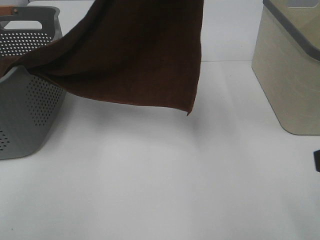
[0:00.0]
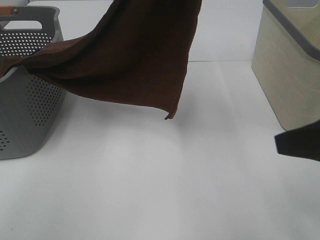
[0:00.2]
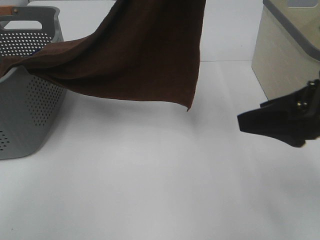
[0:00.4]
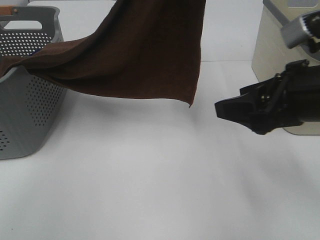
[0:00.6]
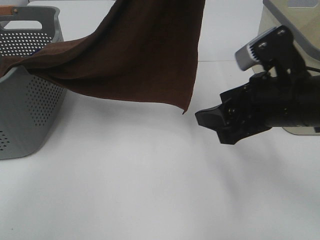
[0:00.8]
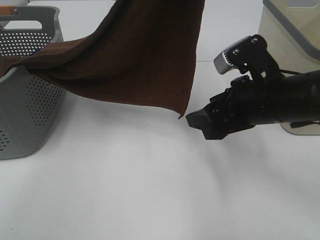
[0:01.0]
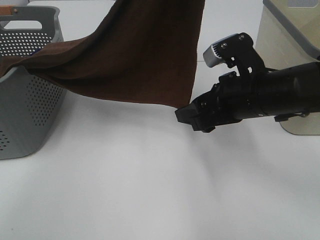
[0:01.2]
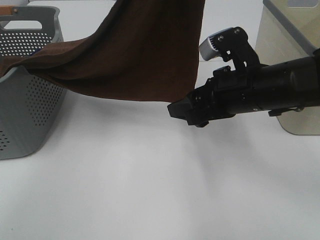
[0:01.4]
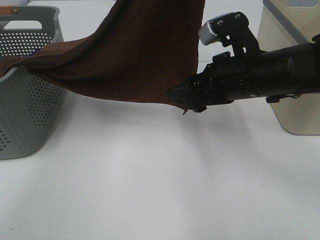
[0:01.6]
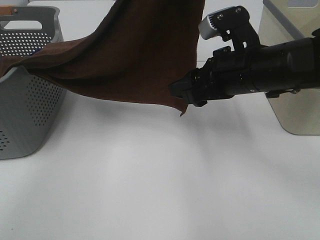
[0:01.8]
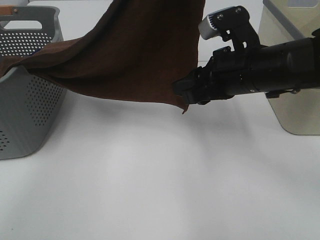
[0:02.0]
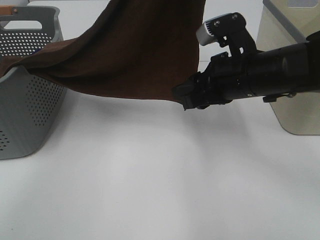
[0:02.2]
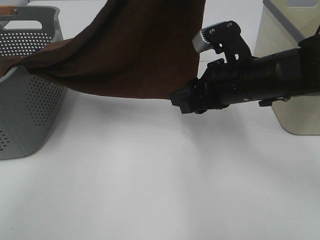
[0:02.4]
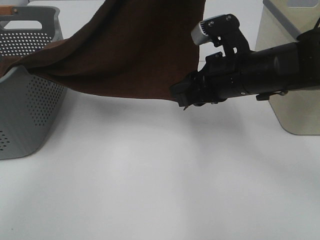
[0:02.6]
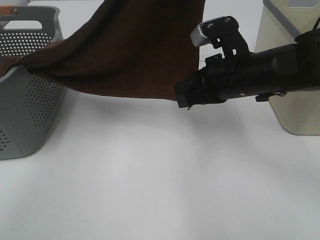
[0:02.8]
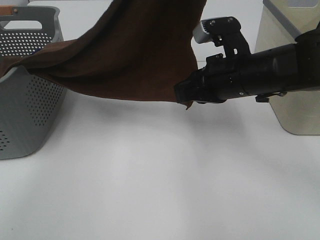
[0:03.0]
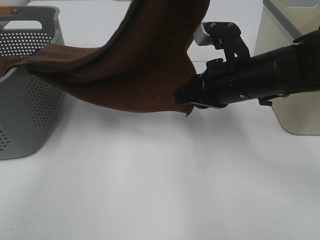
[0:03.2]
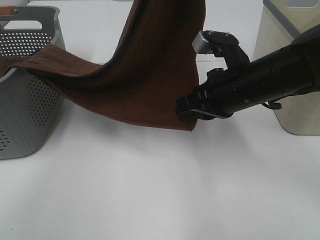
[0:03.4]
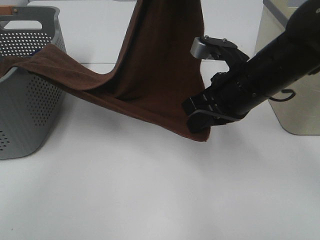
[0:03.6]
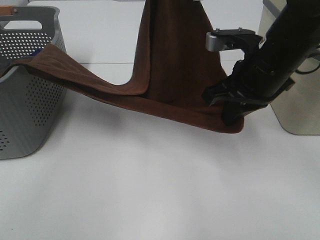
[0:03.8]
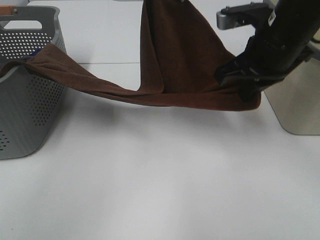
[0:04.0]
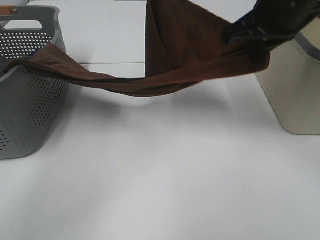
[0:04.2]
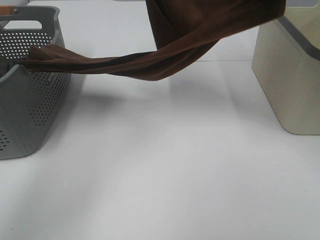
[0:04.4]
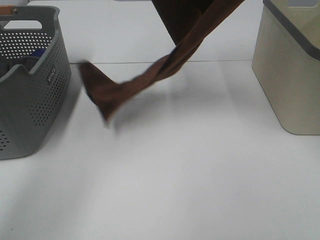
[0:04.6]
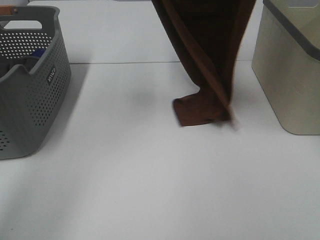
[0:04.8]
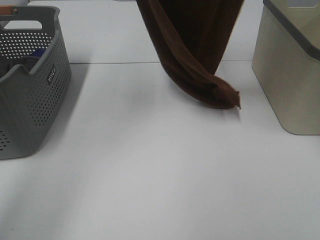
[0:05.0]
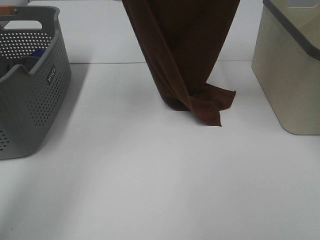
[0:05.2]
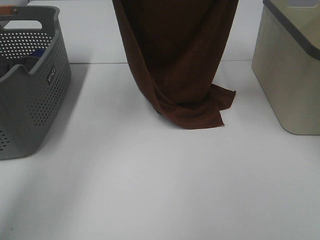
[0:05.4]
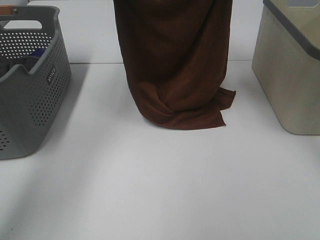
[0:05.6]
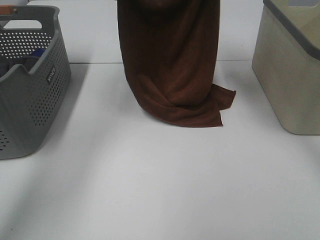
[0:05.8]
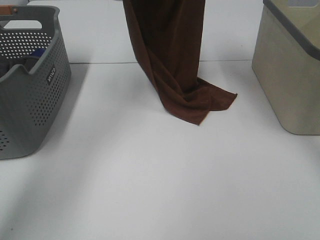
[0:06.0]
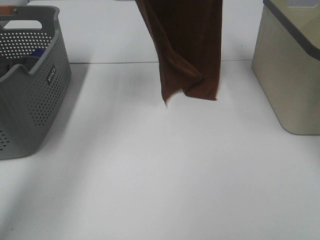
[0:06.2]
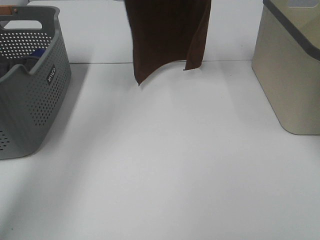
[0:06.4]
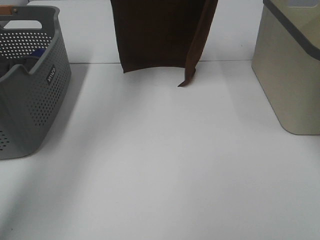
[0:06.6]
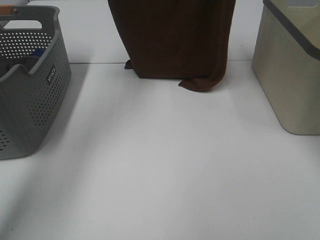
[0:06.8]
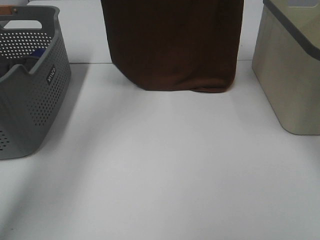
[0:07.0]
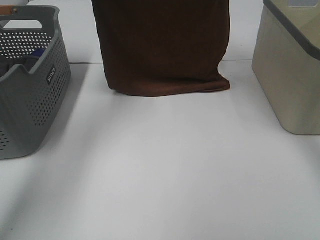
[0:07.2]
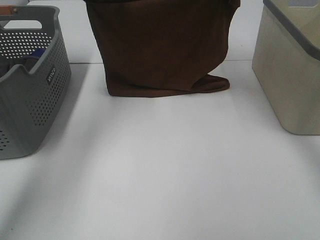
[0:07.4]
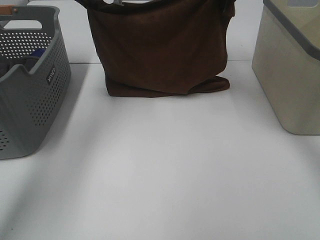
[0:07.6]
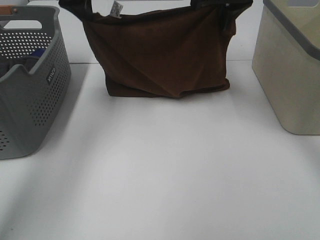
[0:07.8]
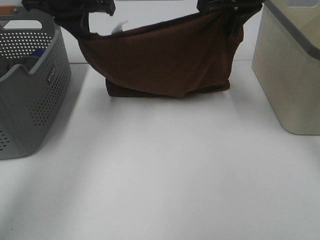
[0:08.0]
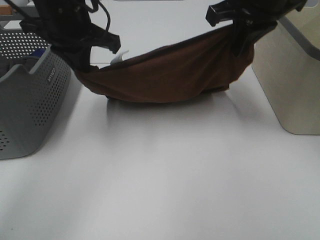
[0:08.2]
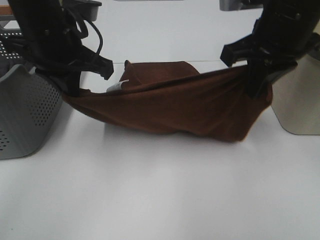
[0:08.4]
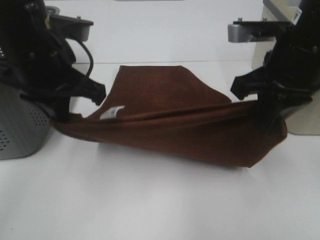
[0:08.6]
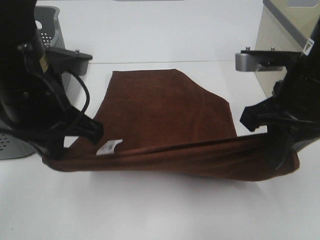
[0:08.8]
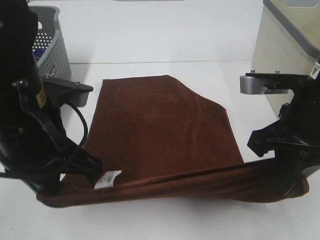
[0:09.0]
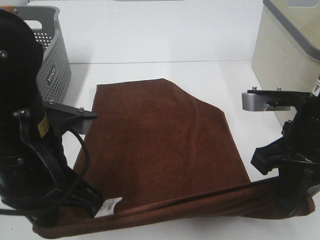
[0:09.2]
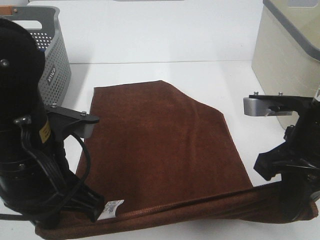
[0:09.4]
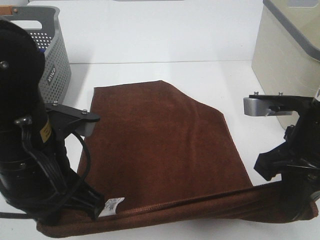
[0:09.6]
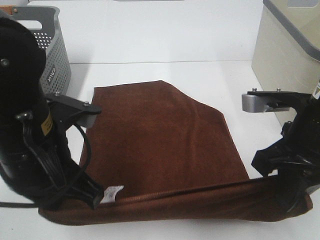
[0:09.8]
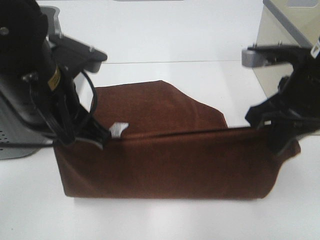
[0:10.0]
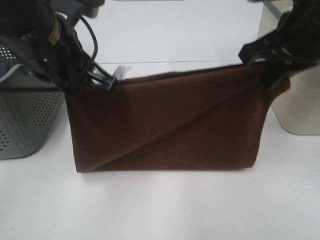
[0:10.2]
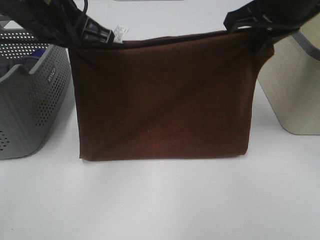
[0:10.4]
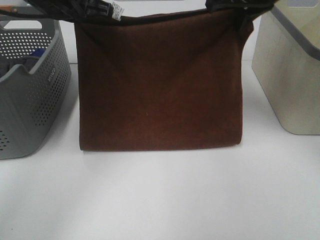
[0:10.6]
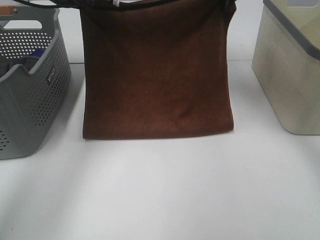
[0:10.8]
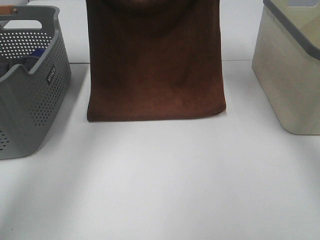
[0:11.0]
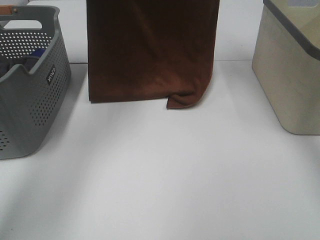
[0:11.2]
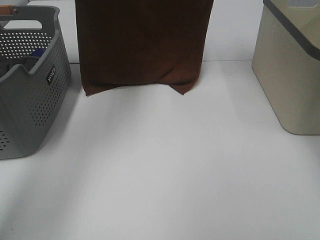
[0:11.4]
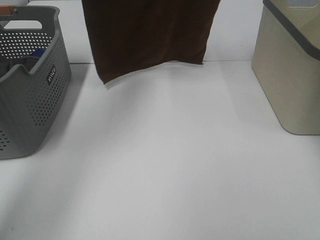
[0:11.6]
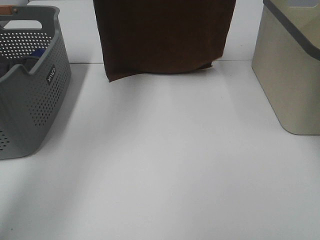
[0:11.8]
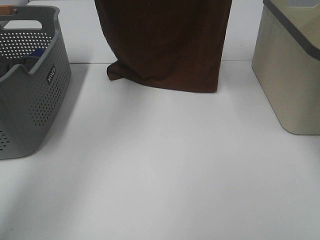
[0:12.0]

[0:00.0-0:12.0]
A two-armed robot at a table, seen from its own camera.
Task of the whole recording: Remove the towel and place it.
Step, 0:00.0 to 0:02.0: Right hand: grab a corner of the brown towel and straighten it.
Step, 0:02.2 to 0:10.0: Left hand: spread the brown towel flat on the table.
Step, 0:02.2 to 0:10.0: Right hand: spread the brown towel flat on the table.
0:00.0 to 0:01.6: The right gripper travels forward, to the left and downward by approximately 20 cm.
0:01.6 to 0:03.0: The right gripper closes its fingers.
0:03.0 to 0:04.4: The right gripper travels upward by approximately 20 cm, while the left gripper is displaced forward, downward and to the left by some 15 cm.
0:04.4 to 0:06.0: The right gripper moves up and down over about 10 cm, changing direction 2 times. The left gripper moves up and down over approximately 15 cm, changing direction 2 times.
0:06.0 to 0:07.6: Both grippers move downward, some 10 cm.
0:07.6 to 0:09.0: The left gripper moves backward, roughly 30 cm; the right gripper goes approximately 25 cm backward and downward.
0:09.0 to 0:10.4: The grippers both shift forward and upward by some 15 cm.
0:10.4 to 0:12.0: The right gripper is displaced upward and forward by some 15 cm. The left gripper moves forward and upward, some 20 cm.

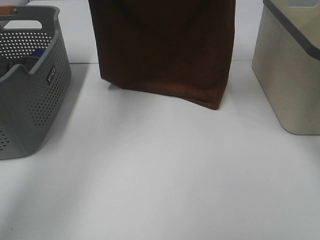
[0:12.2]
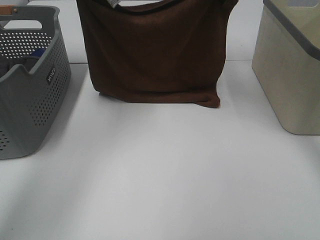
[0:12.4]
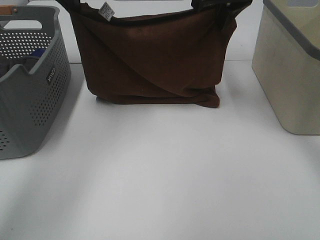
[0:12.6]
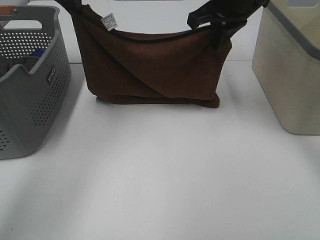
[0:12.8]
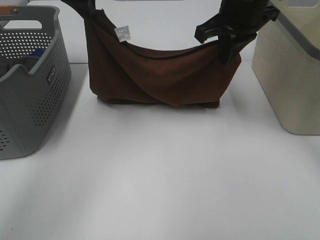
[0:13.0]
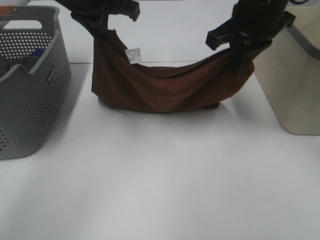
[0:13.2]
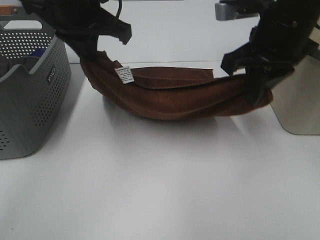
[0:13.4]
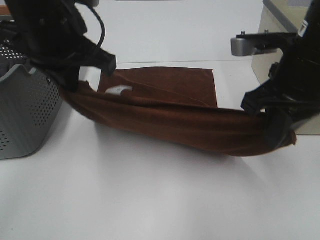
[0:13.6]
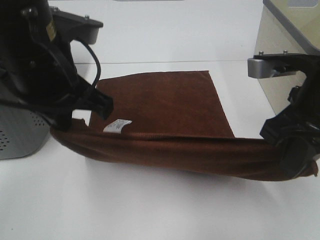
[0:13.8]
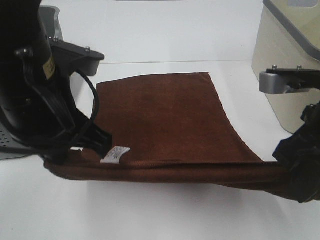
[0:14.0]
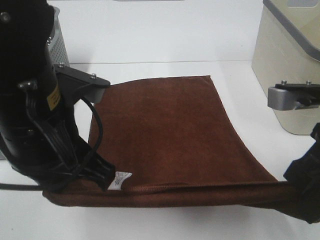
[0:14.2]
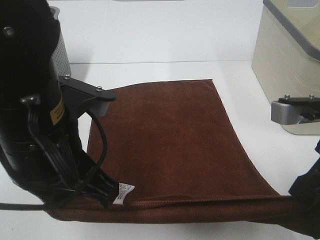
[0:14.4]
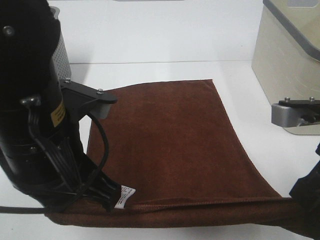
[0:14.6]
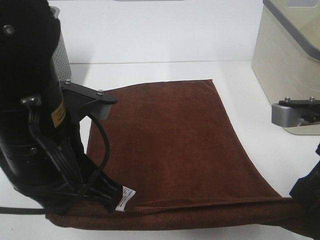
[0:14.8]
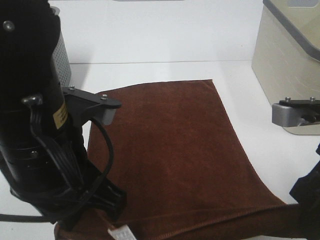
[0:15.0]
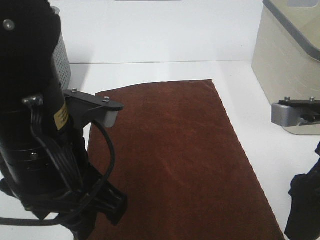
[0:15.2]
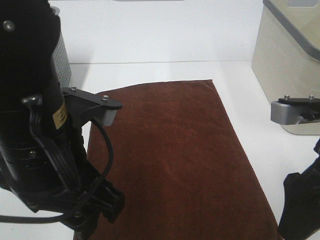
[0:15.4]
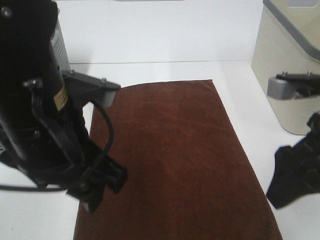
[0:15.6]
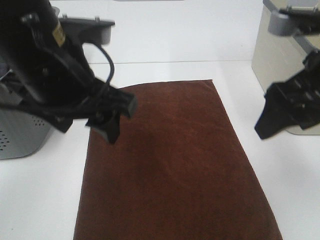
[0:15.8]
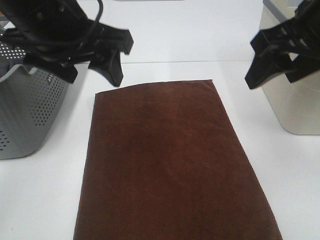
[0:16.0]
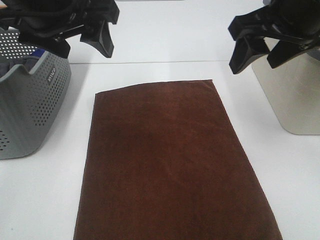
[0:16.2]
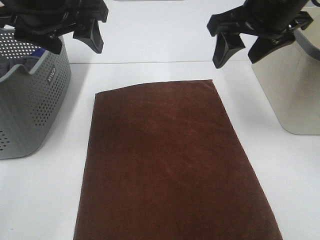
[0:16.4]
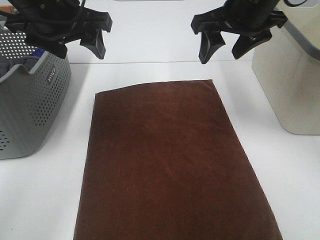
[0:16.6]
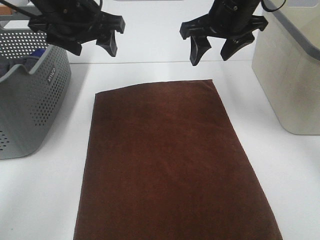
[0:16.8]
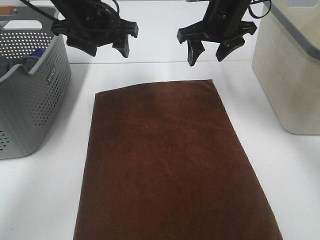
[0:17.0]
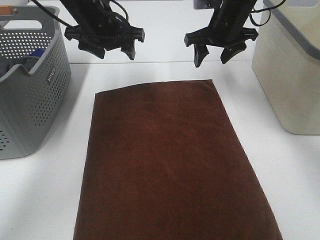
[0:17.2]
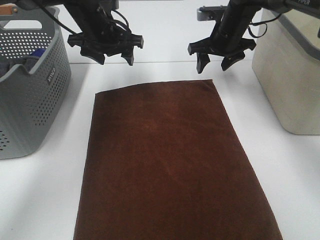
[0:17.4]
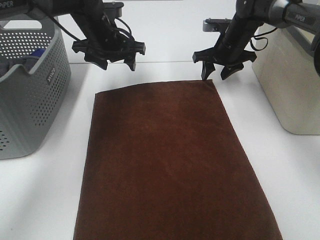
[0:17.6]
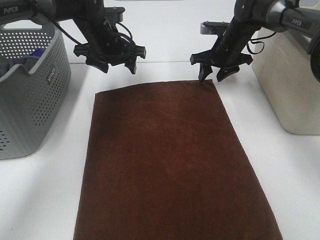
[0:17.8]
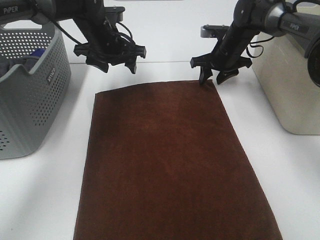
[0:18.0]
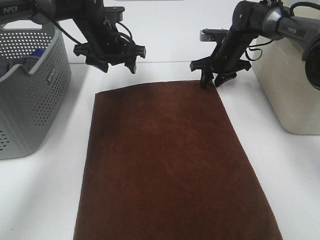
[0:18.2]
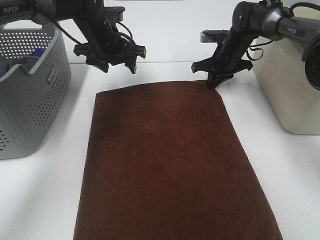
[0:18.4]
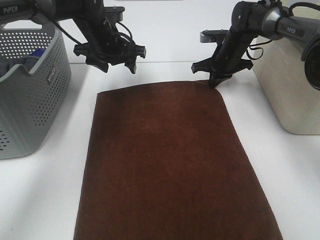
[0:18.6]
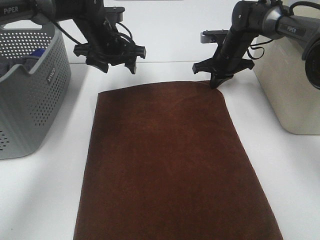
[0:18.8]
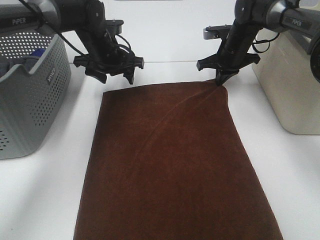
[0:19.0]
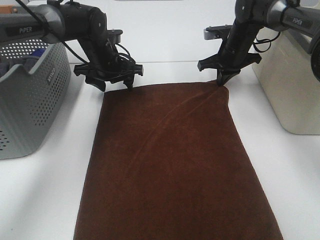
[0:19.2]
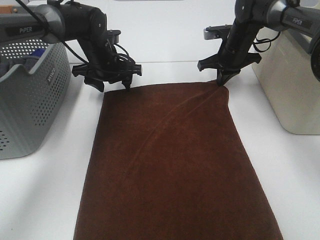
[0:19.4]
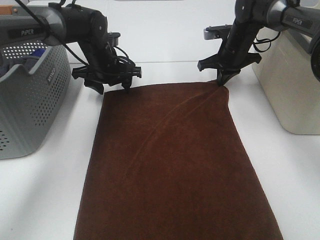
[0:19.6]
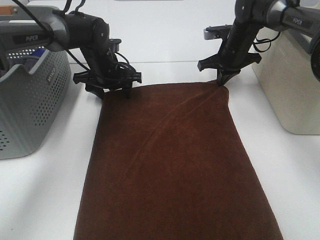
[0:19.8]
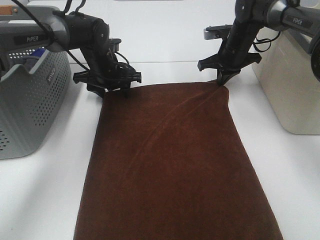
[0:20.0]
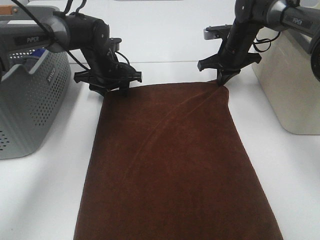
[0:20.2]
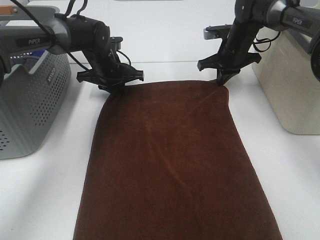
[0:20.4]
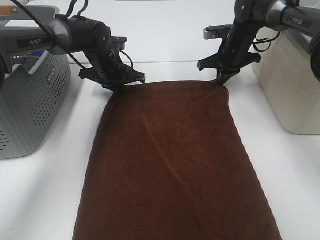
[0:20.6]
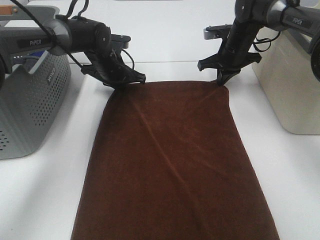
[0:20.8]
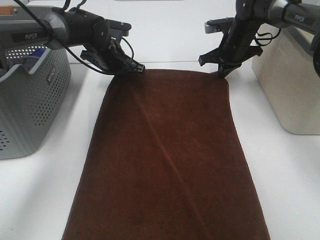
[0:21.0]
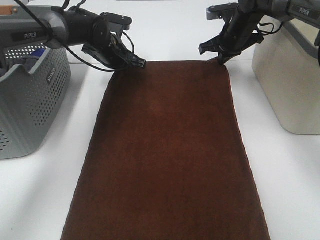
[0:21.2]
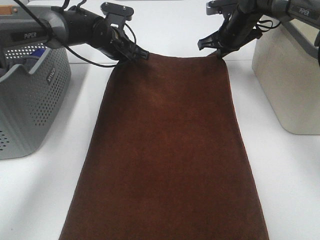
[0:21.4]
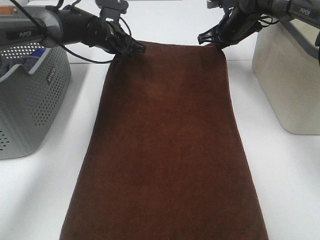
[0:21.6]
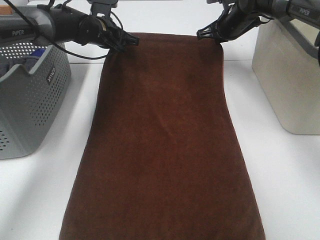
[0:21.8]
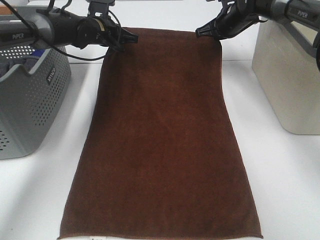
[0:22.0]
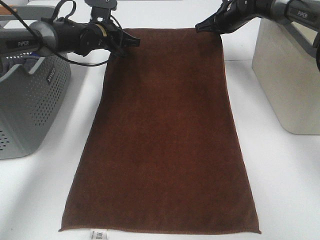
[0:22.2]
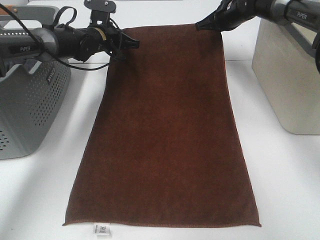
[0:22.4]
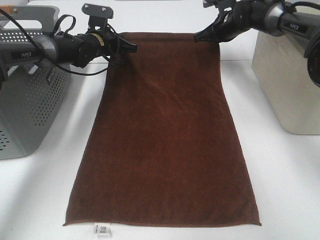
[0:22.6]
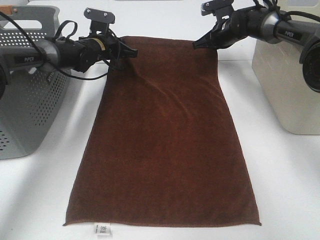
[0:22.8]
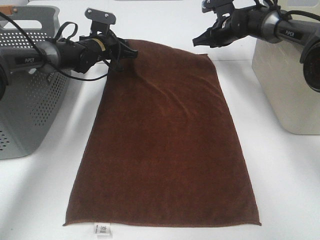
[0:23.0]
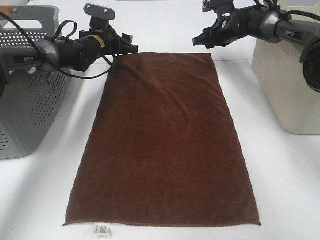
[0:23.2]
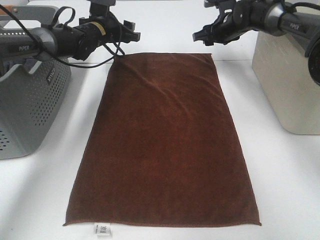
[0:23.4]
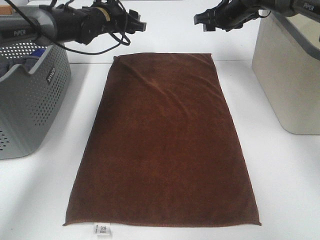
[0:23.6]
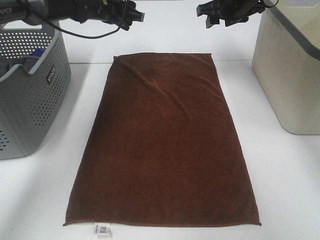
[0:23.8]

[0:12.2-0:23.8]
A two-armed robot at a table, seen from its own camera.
Task of the whole recording: Remove the towel and place it.
Step, 0:12.2 to 0:16.4: Left hand:adjust the brown towel.
Step, 0:12.2 to 0:16.4: Right hand:adjust the brown towel.
0:12.2 to 0:13.6: Both grippers move backward and downward, roughly 20 cm.
0:13.6 to 0:15.0: The right gripper goes approximately 10 cm backward, and opens its fingers. The left gripper is displaced backward and downward by roughly 15 cm.
0:15.0 to 0:16.6: Both grippers move forward, roughly 20 cm. The left gripper opens; the right gripper opens up.
0:16.6 to 0:18.0: The left gripper heads forward and downward, covering approximately 20 cm. The right gripper moves downward and forward, some 25 cm.
0:18.0 to 0:19.4: The right gripper closes its fingers.
0:19.4 to 0:21.0: The left gripper closes.
0:21.0 to 0:22.4: The left gripper shifts by roughly 5 cm. The right gripper moves about 5 cm.
0:22.4 to 0:23.8: The right gripper moves about 5 cm, and opens up, while the left gripper travels upward by approximately 10 cm, and opens.
